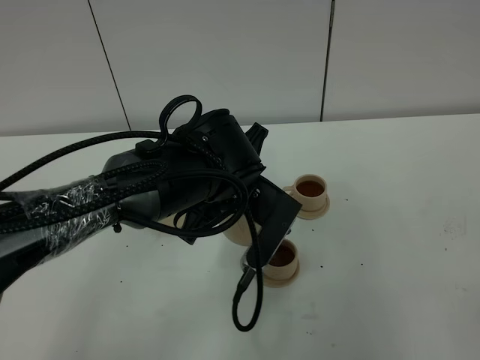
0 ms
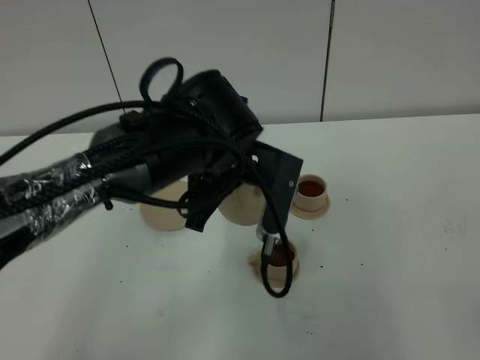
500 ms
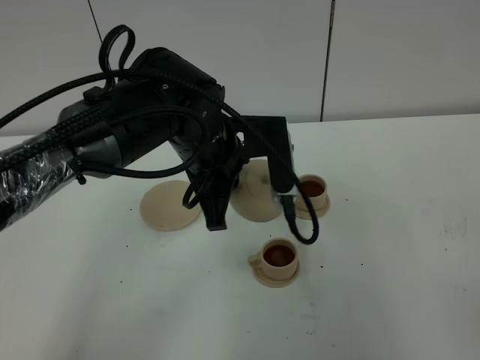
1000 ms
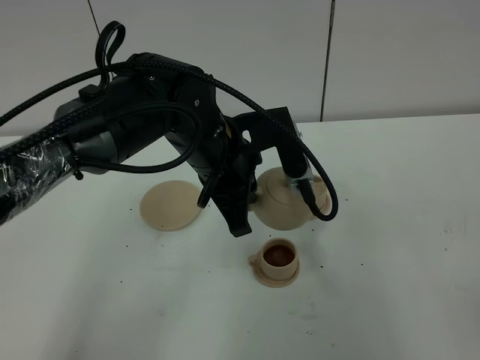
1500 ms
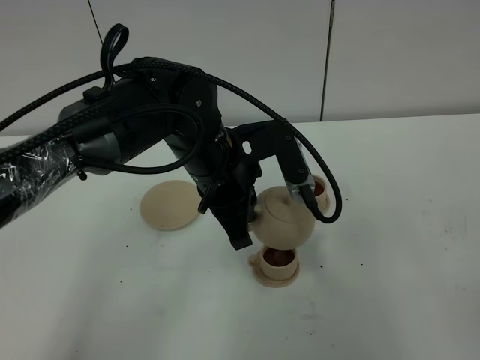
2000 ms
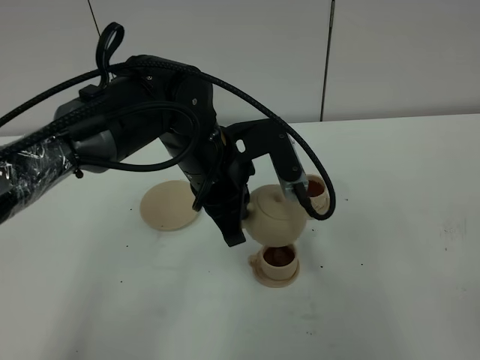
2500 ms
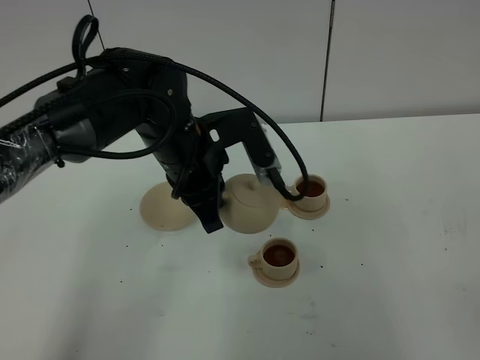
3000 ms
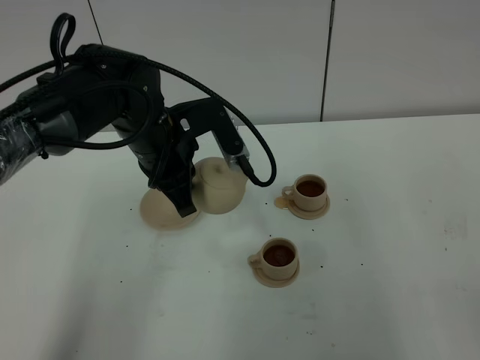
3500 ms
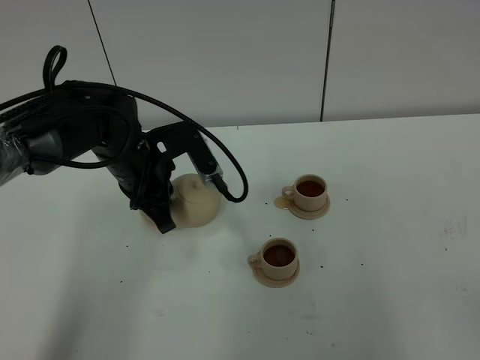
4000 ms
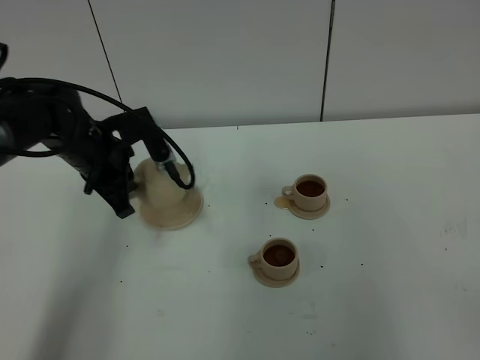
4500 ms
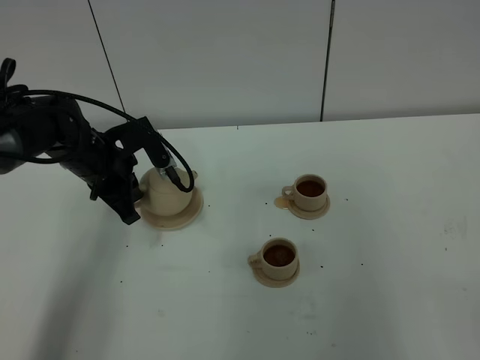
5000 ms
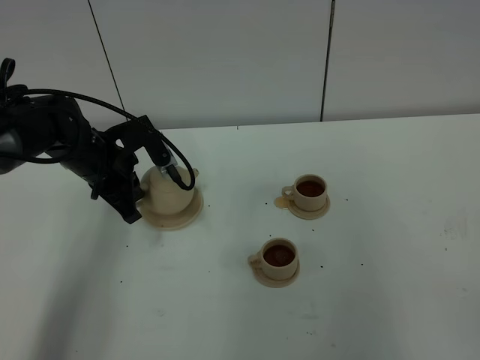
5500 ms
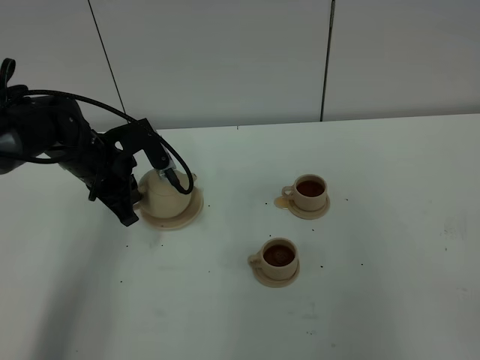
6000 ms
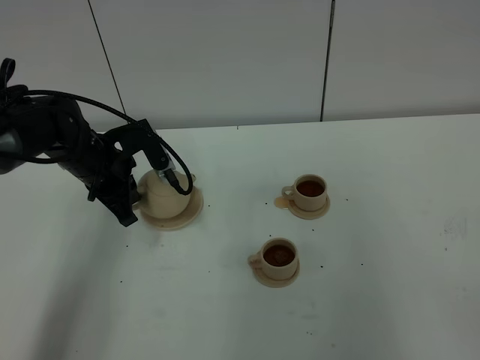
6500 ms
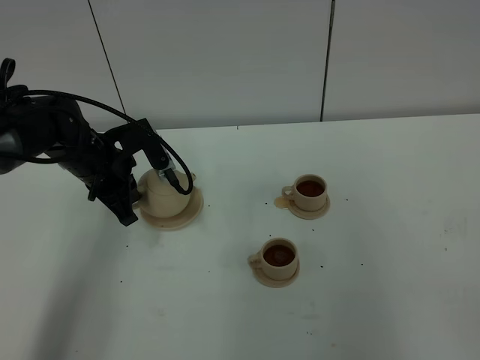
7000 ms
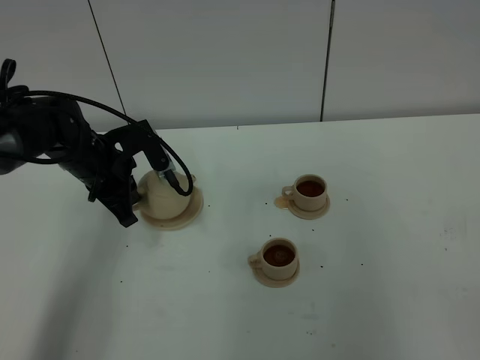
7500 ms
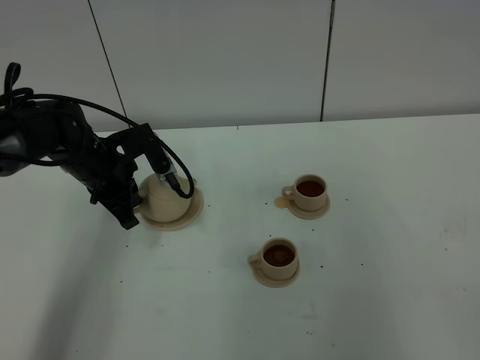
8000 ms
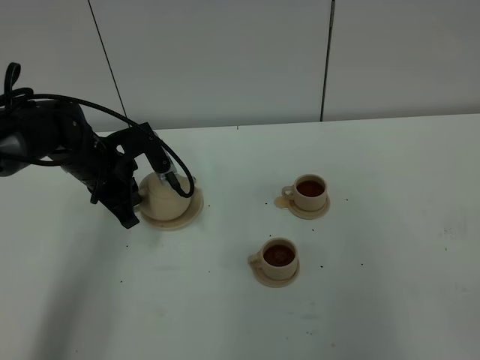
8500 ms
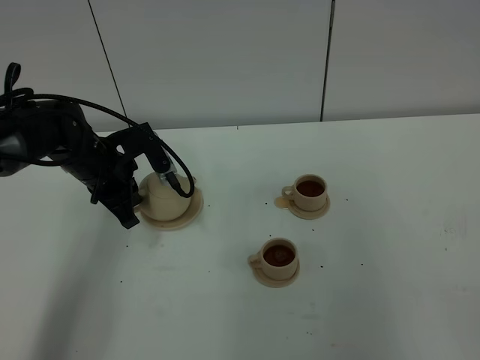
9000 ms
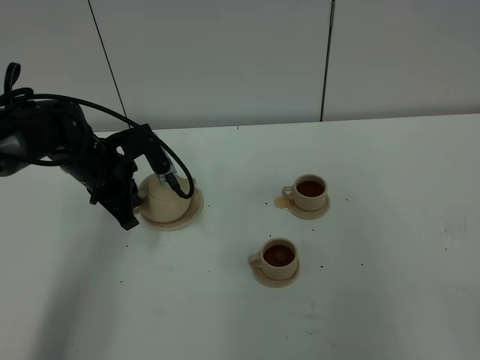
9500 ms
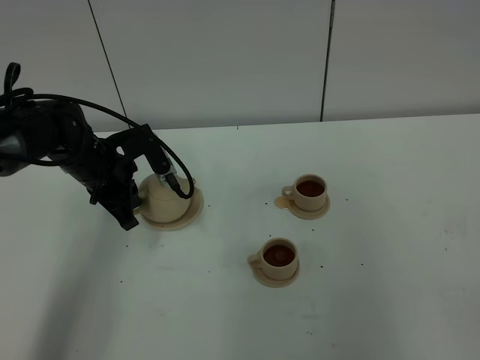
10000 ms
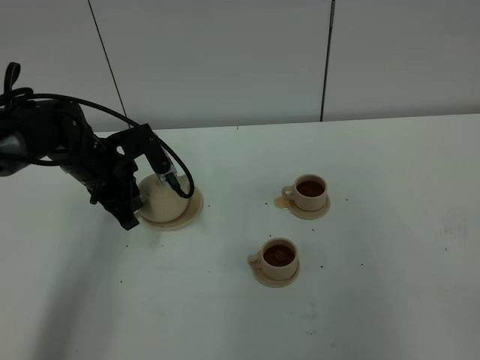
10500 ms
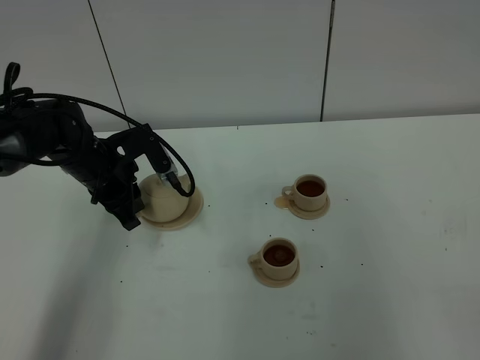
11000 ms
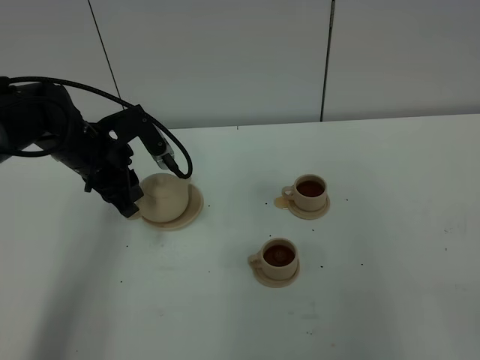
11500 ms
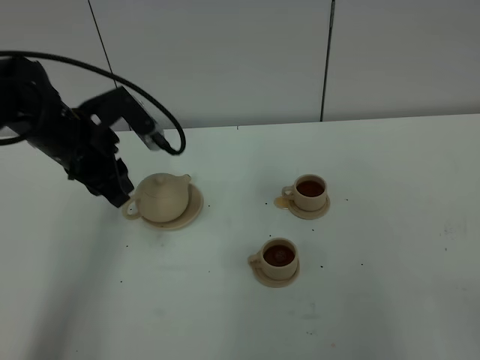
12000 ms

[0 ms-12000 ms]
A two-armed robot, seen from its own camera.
Task of the whole recording: grasp the brown teapot and pour the tea into the two brown teacups one by one, put the brown teapot back in its original place.
2000 ms to 4000 ms: The left gripper travels to the left and forward by approximately 10 cm.
4000 ms to 6000 ms: The left gripper moves to the left, some 5 cm.
6000 ms to 10000 ms: Both grippers stay about where they are.
10000 ms to 12000 ms: The left gripper goes approximately 10 cm upward, and opens its fingers.

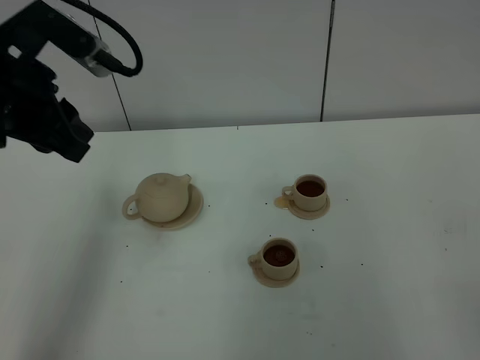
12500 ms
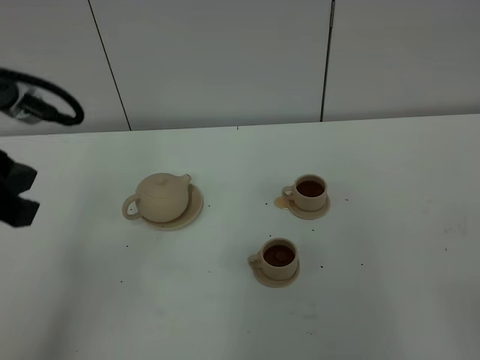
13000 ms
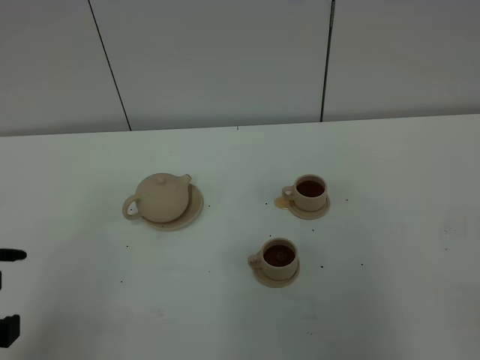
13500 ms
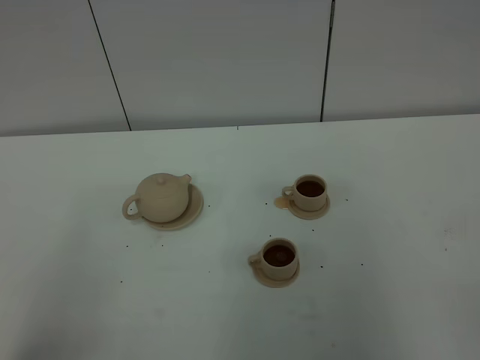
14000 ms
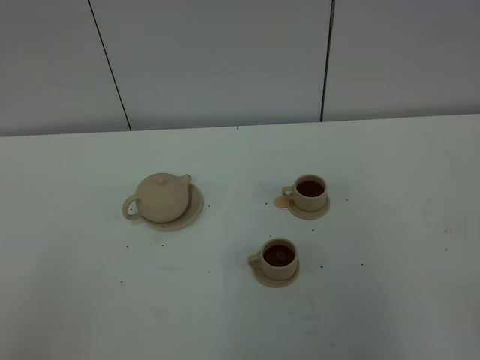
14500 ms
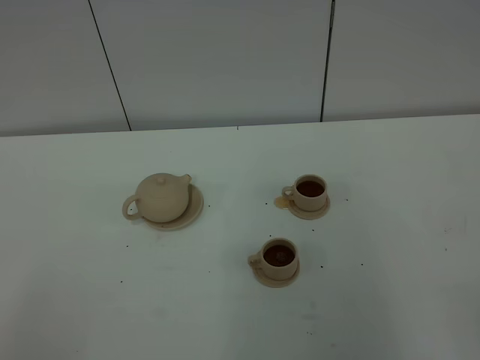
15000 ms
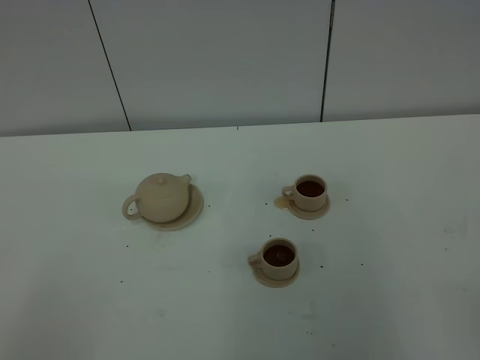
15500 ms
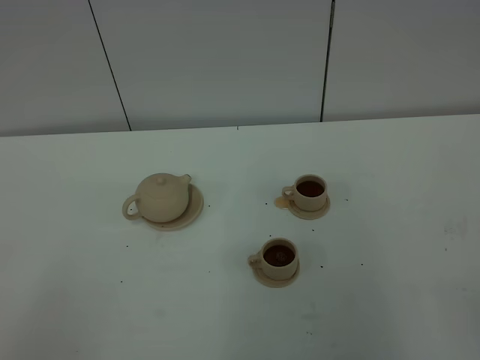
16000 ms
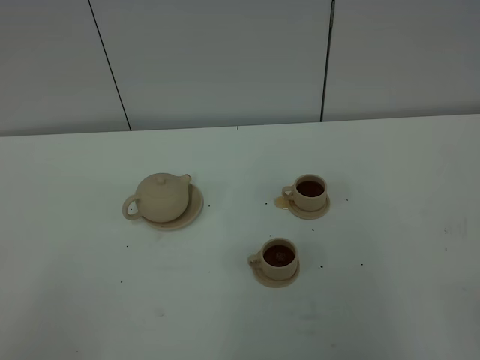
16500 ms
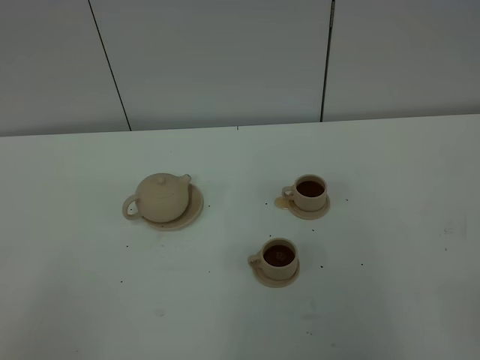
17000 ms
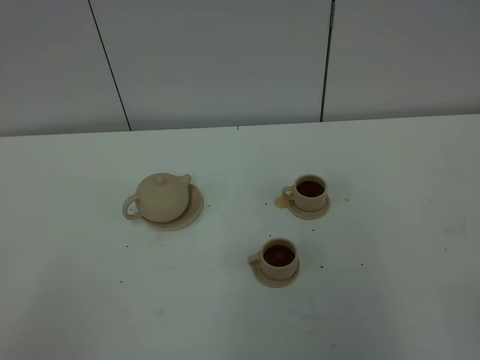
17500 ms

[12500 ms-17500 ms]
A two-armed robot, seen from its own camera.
Task of the whole recording: grasp the brown teapot and pour the tea into the two brown teacups one by one, put the brown teapot back in its original place.
12500 ms to 15000 ms: The left gripper moves backward, approximately 35 cm.
